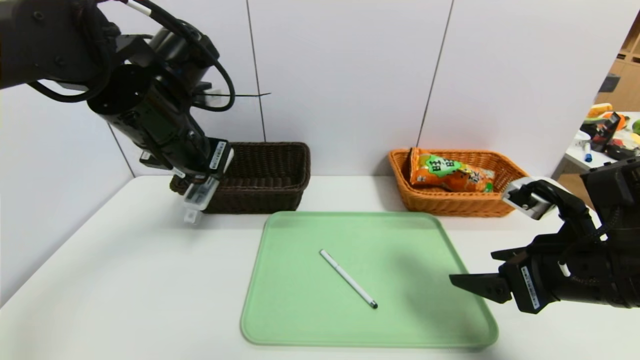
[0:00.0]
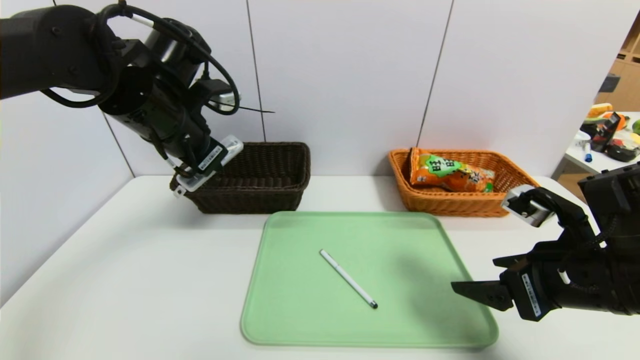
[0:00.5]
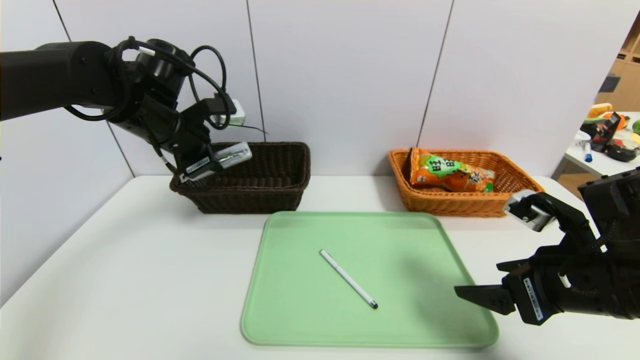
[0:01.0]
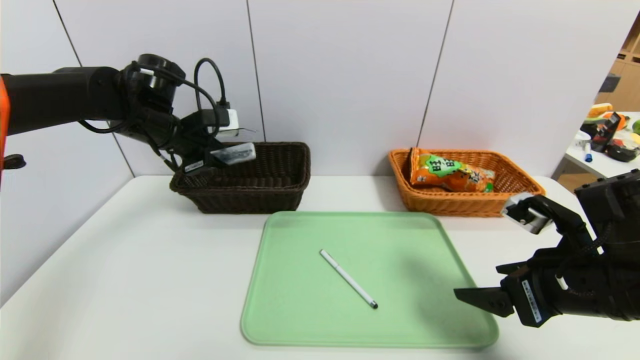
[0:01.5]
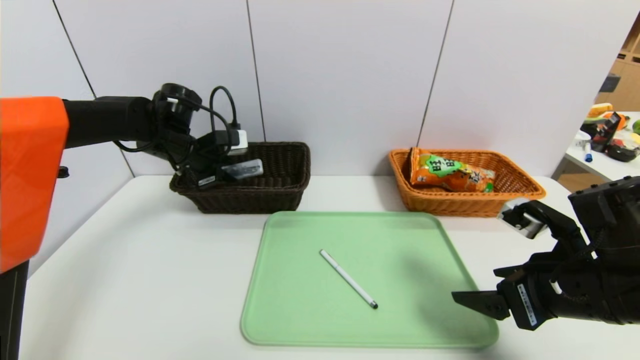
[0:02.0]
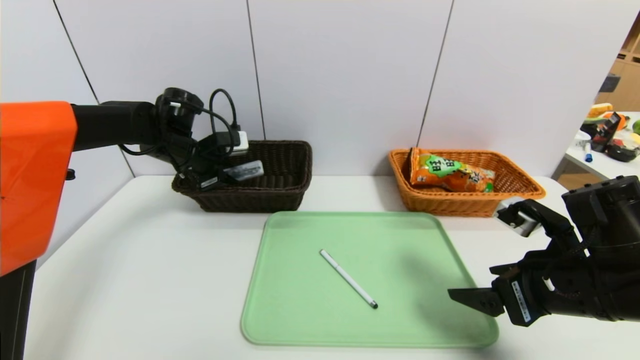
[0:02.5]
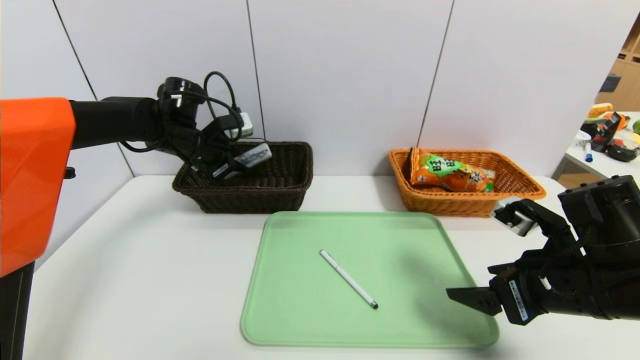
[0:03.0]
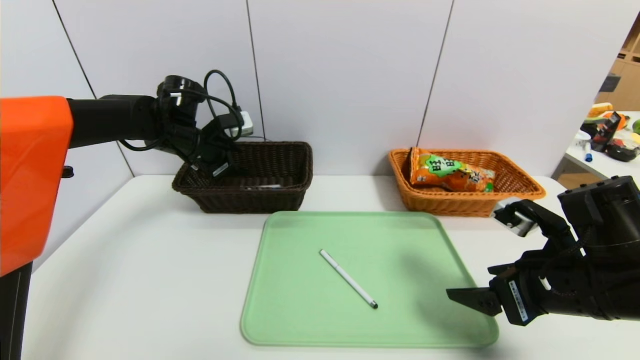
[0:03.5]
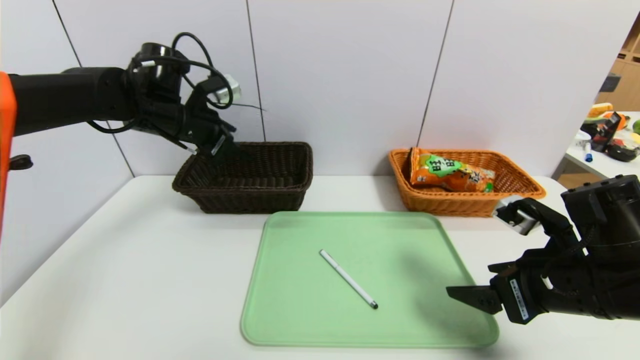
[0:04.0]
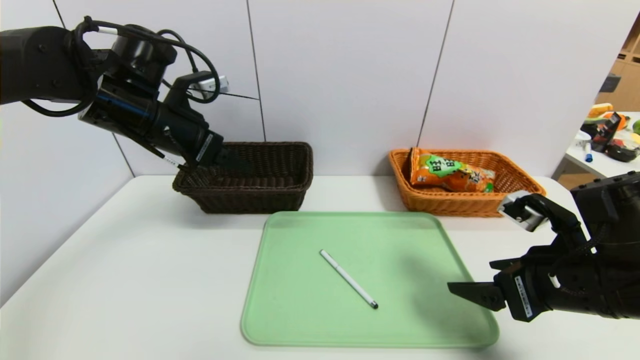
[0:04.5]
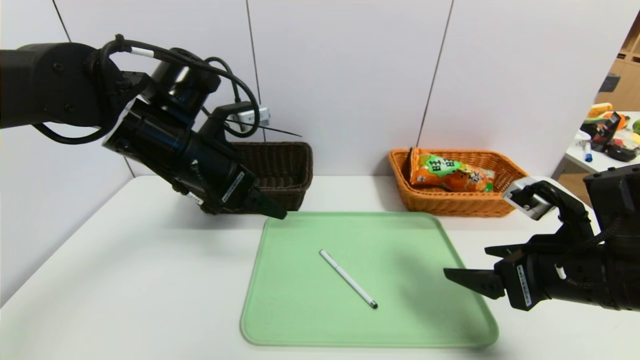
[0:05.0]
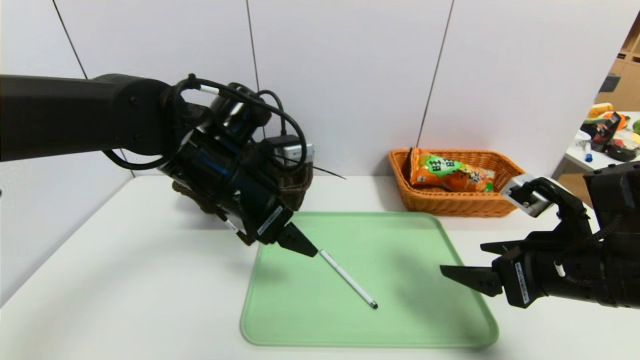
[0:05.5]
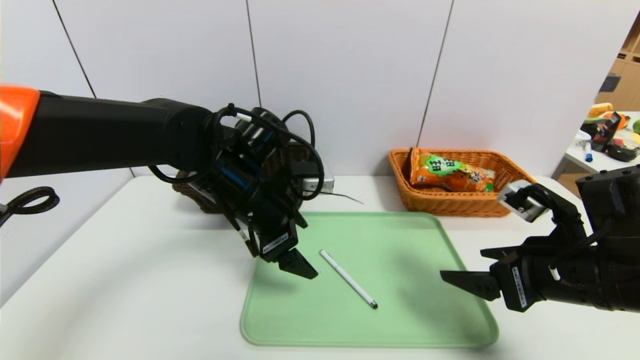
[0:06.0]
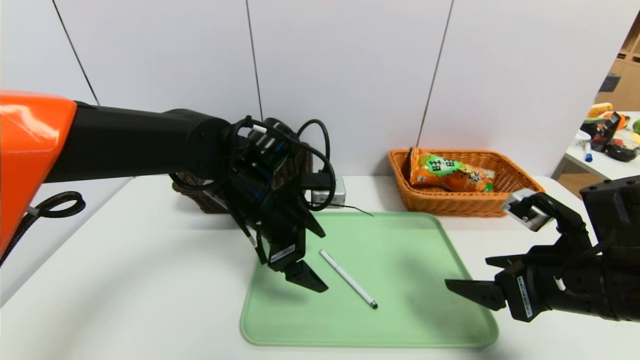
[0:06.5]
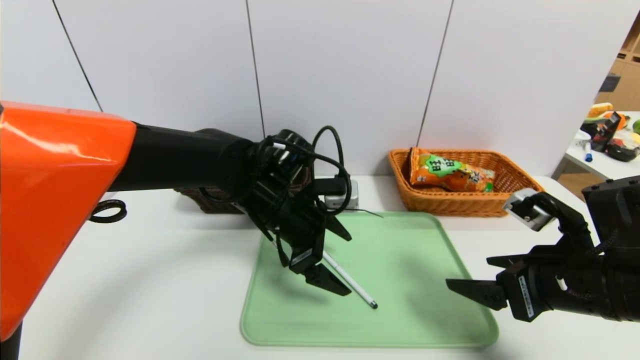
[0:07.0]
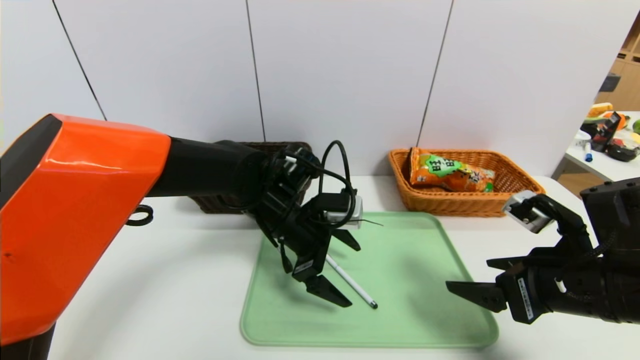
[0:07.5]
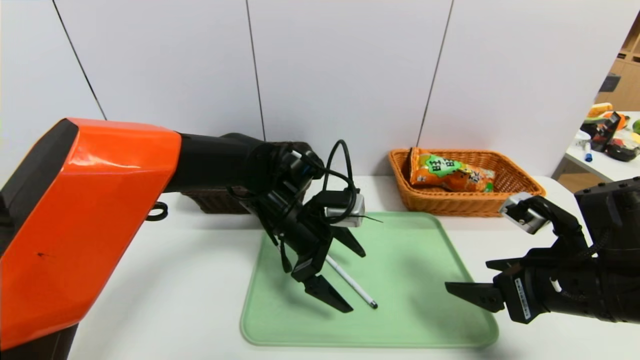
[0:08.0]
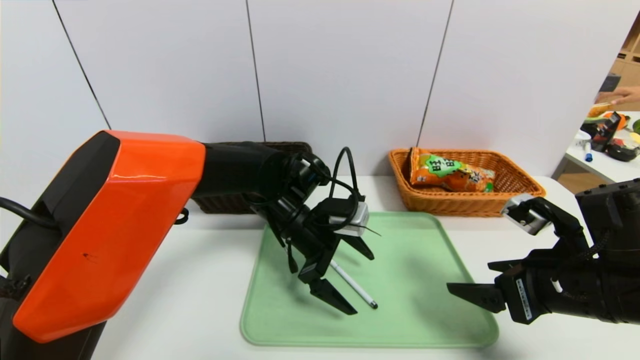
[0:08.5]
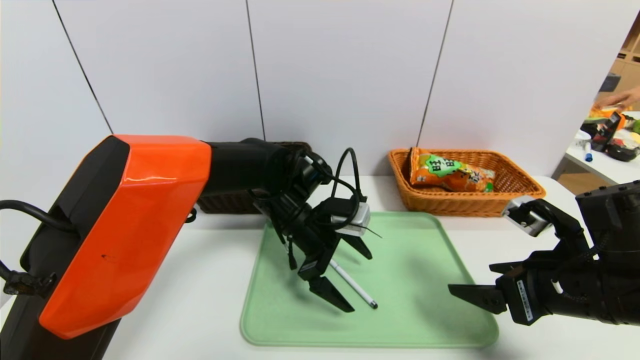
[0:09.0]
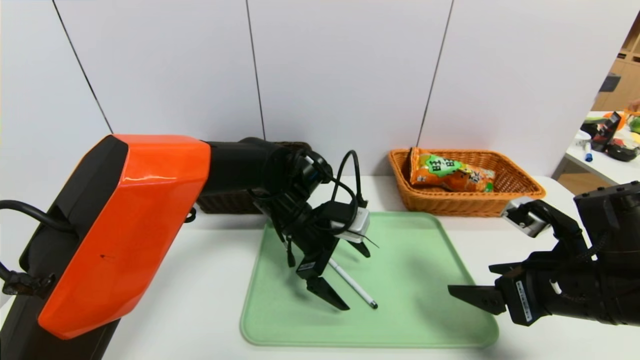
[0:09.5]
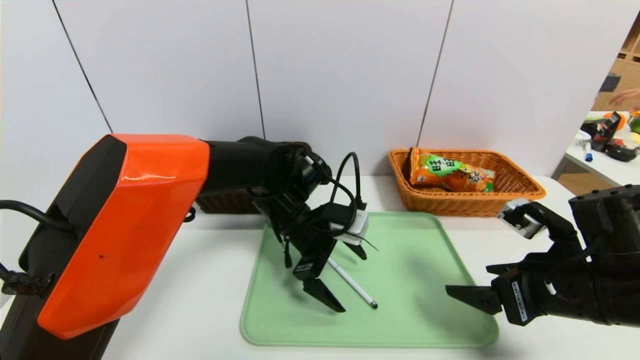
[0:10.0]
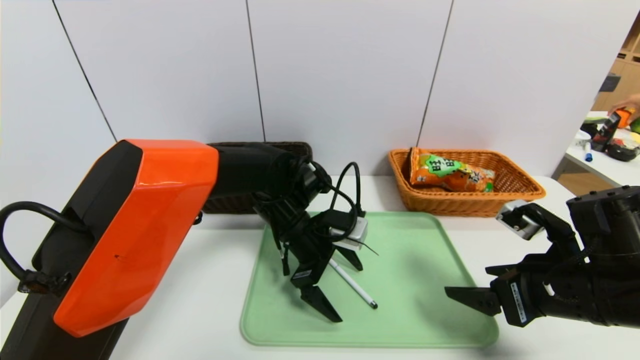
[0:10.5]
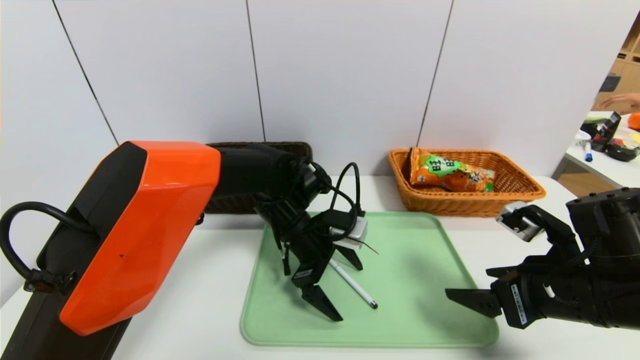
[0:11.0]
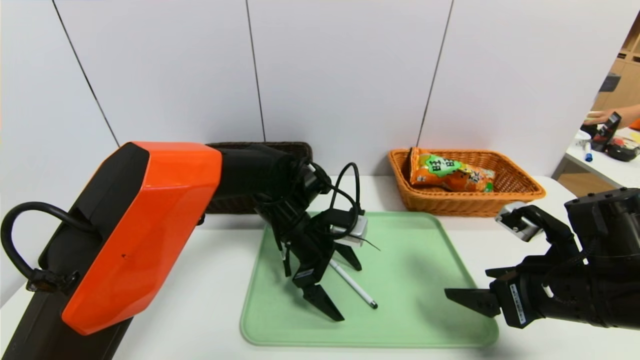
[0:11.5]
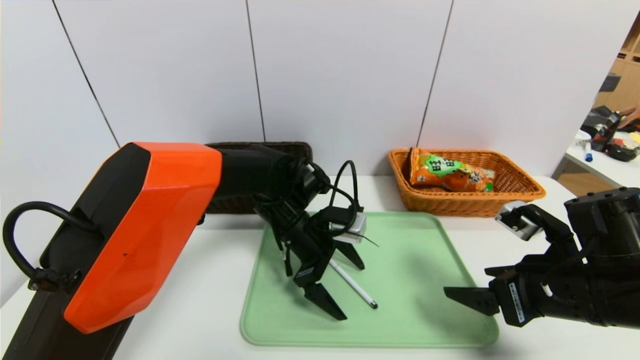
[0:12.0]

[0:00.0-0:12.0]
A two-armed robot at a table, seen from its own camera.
Task of the whole recording: place the food in the right basket with the right gripper, and place the non food items in the left basket with the left gripper.
Step, 0:00.0 to 0:03.5: Grasp the compass and put it in the left basket.
0:00.0 to 0:02.0: The left gripper heads forward, downward and to the left, covering some 20 cm.
0:02.0 to 0:04.0: The left gripper is displaced upward by roughly 5 cm, and opens its fingers.
0:04.0 to 0:06.0: The left gripper shifts roughly 20 cm to the right, backward and downward.
0:06.0 to 0:08.0: The left gripper shifts roughly 5 cm downward.
0:08.0 to 0:12.0: The grippers make only small movements.

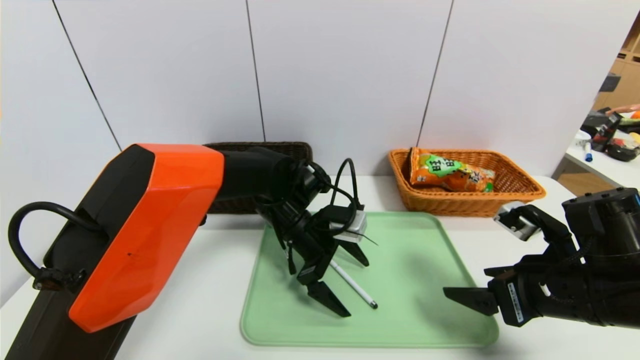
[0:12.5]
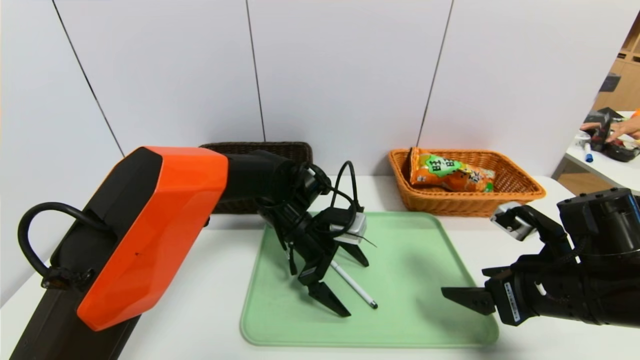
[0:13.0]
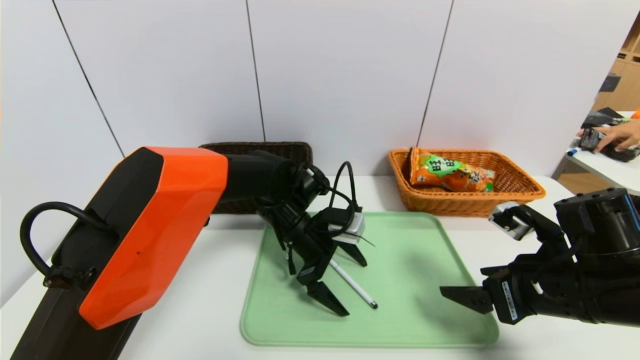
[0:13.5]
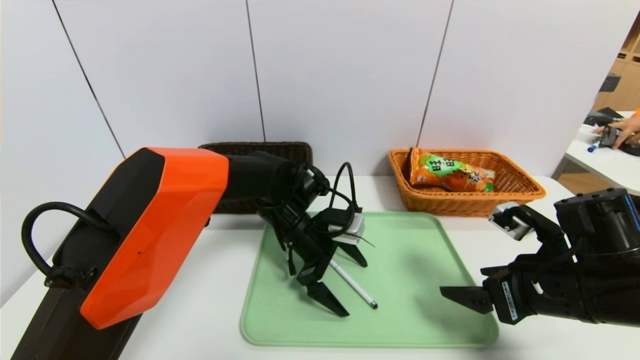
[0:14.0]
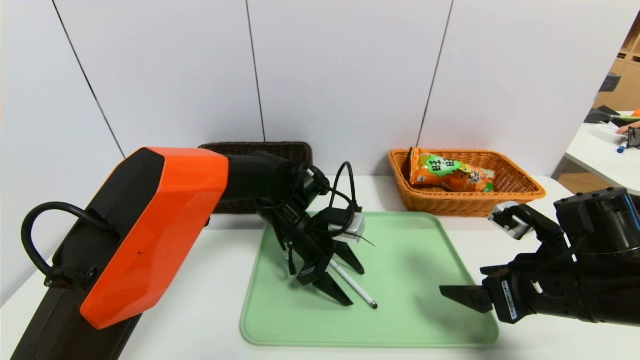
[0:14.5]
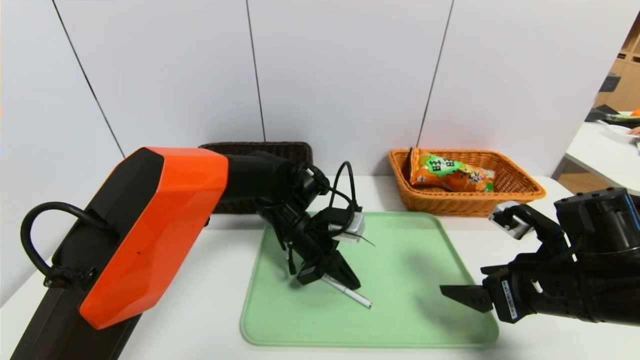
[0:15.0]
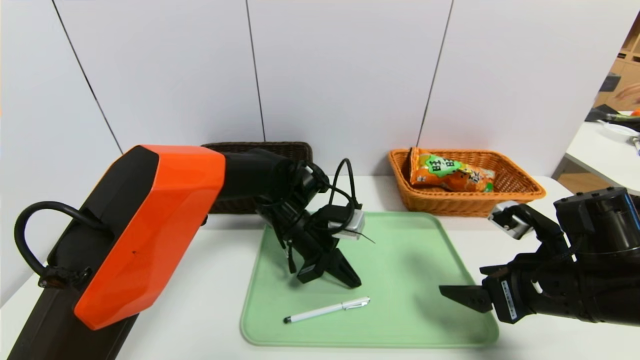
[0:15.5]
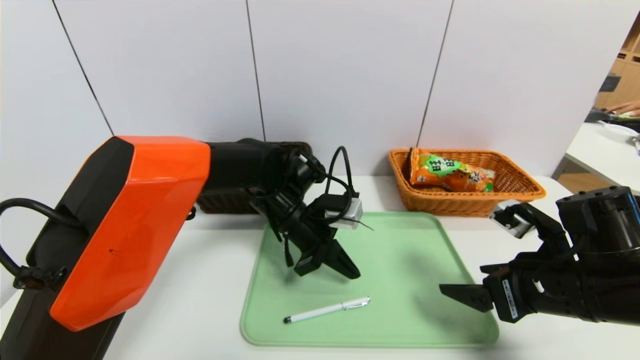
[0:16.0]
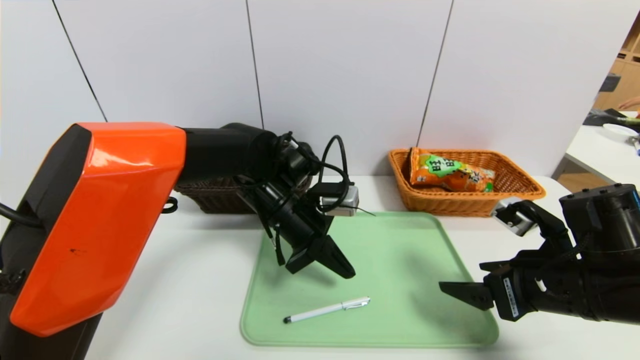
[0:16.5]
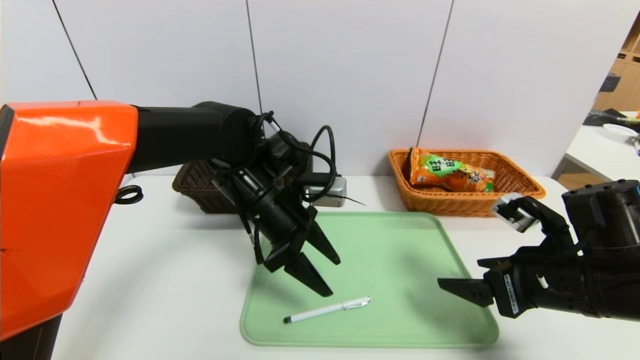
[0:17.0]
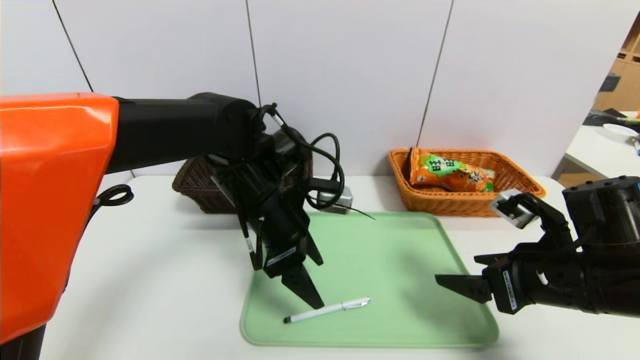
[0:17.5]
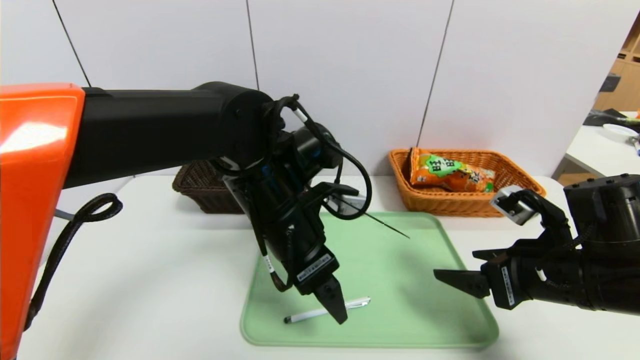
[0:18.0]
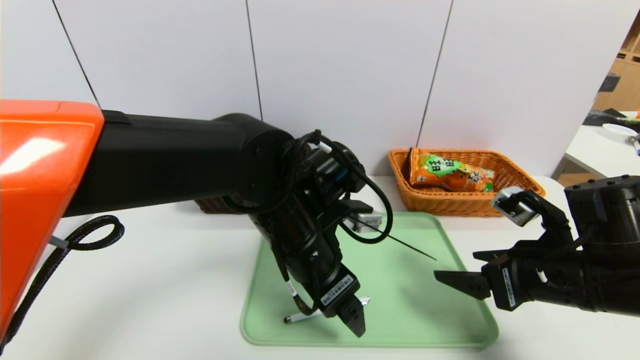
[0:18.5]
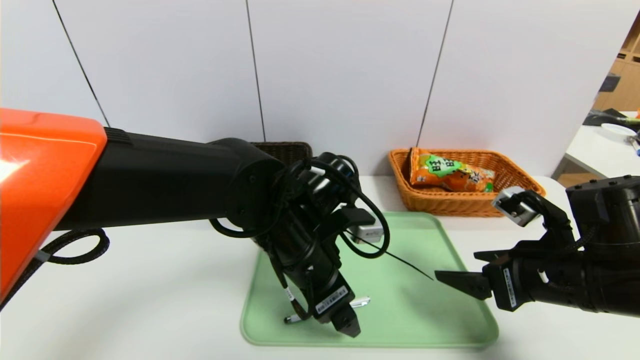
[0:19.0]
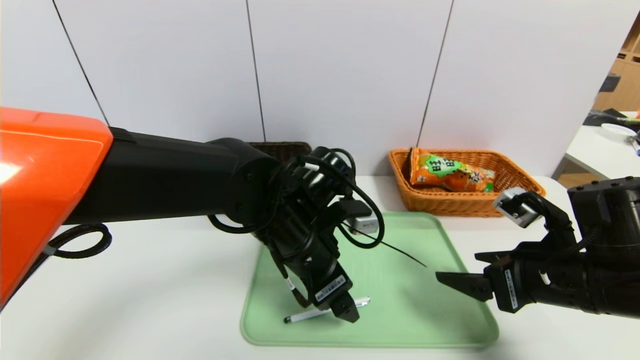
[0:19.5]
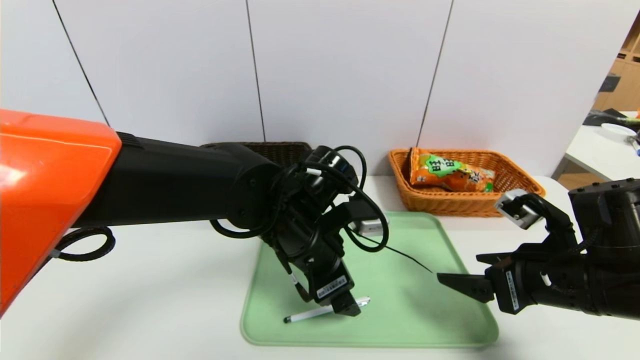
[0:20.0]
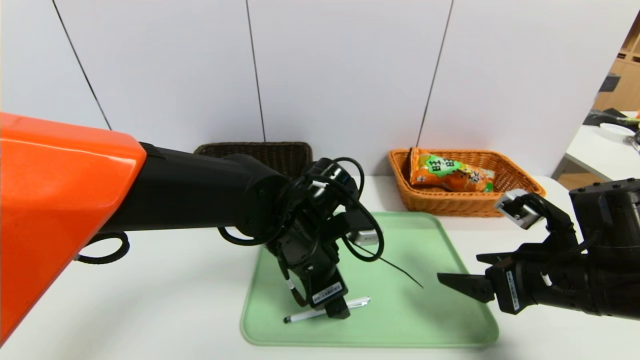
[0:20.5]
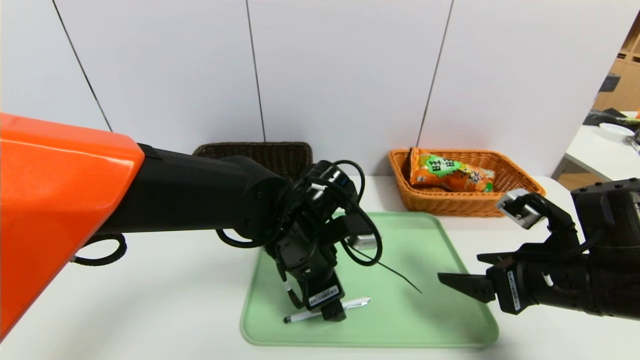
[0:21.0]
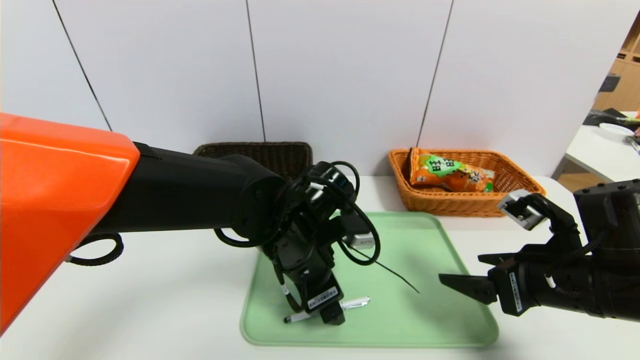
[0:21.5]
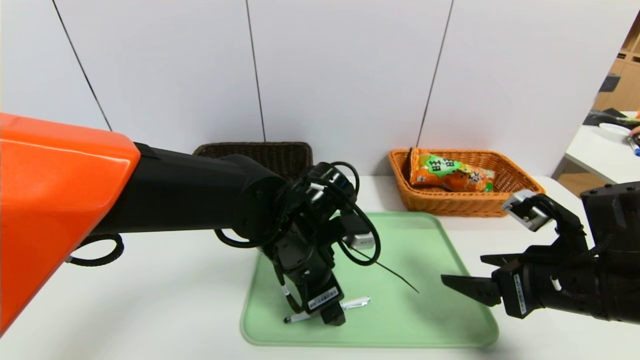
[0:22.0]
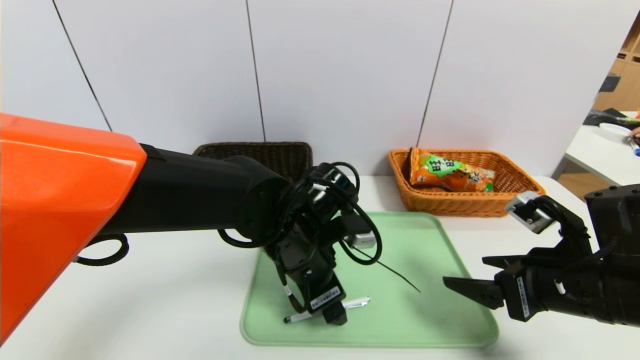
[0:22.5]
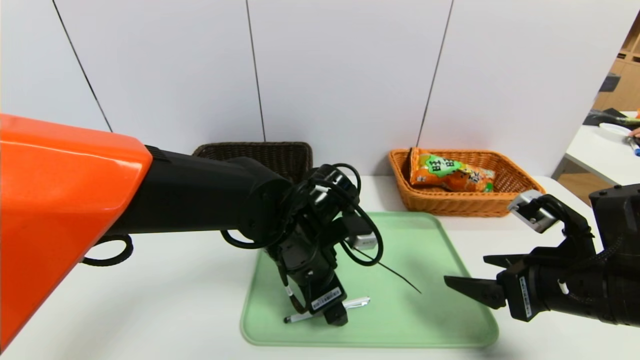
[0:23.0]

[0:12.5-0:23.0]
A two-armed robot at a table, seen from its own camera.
Task of the whole recording: place the food in the right basket with the right gripper, and place the non food items in the left basket with the left gripper.
0:12.5 to 0:14.5: The left gripper closes up.
0:14.5 to 0:16.5: The left gripper heads upward, covering about 5 cm, and closes its fingers.
0:16.5 to 0:19.0: The left gripper heads backward, covering some 10 cm, and opens its fingers.
0:19.0 to 0:23.0: There are only small adjustments of the grippers.
